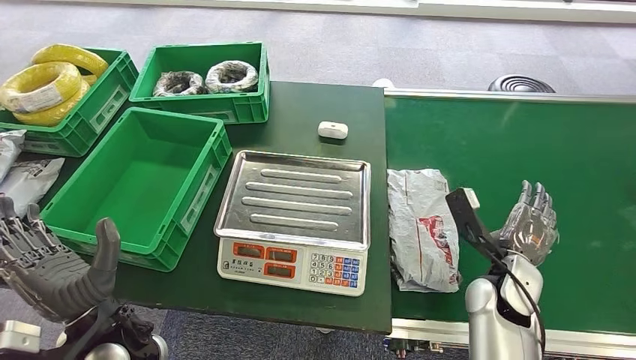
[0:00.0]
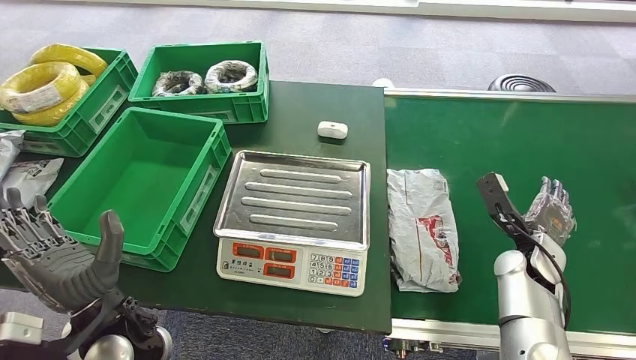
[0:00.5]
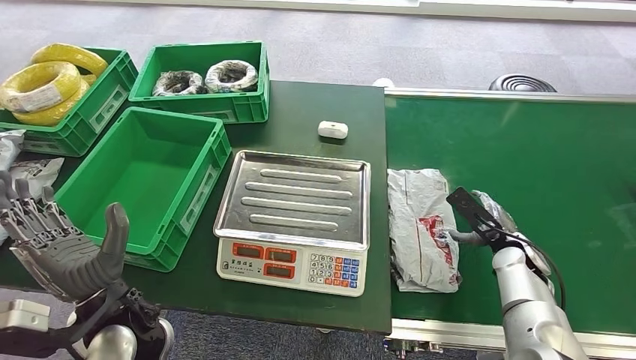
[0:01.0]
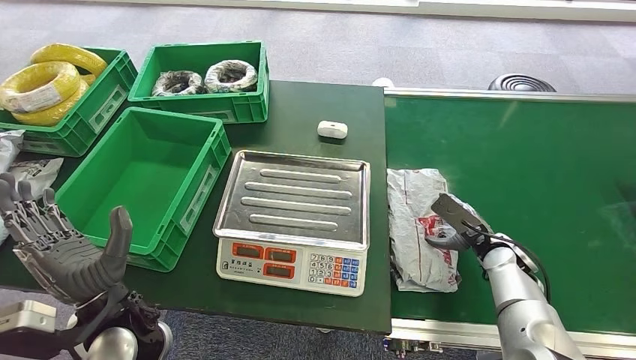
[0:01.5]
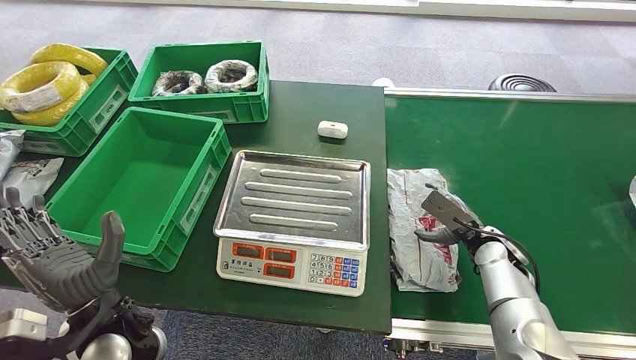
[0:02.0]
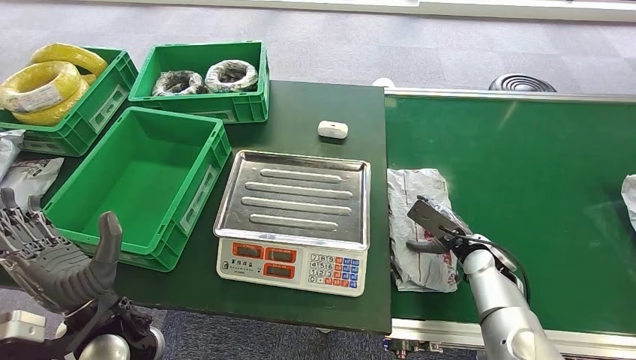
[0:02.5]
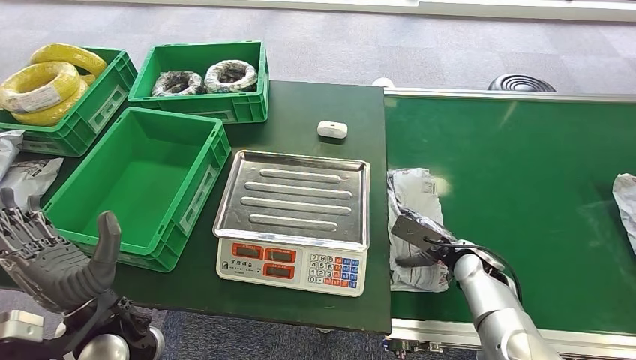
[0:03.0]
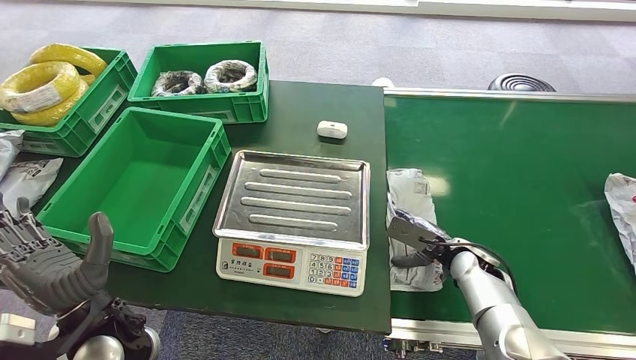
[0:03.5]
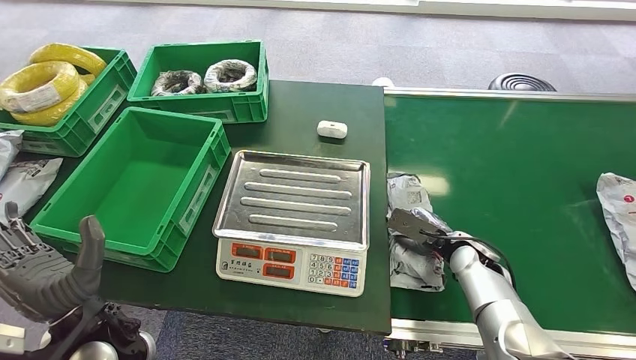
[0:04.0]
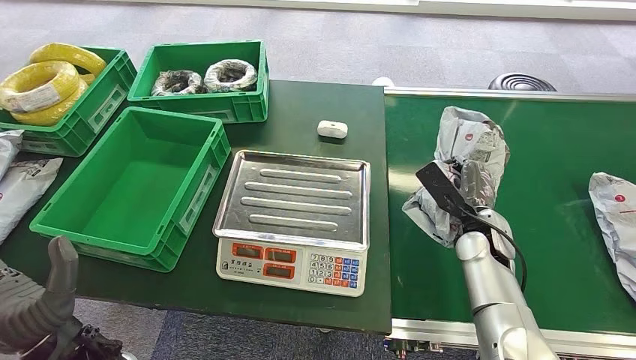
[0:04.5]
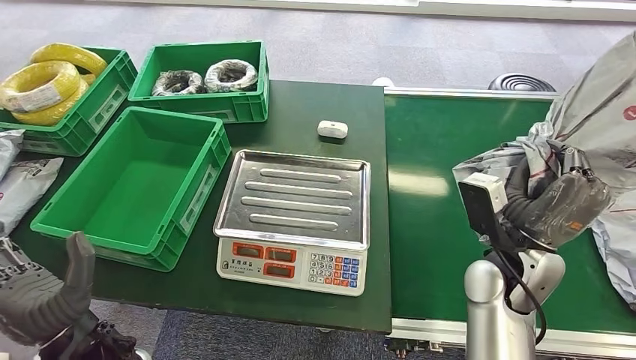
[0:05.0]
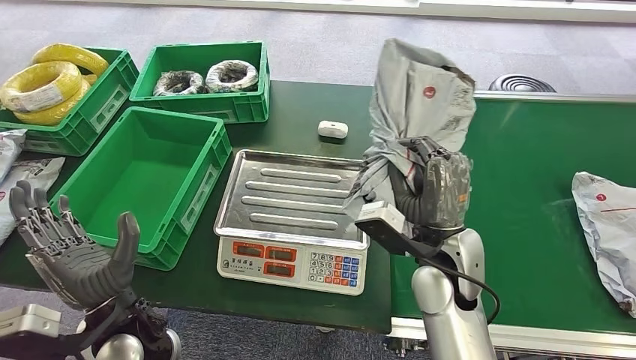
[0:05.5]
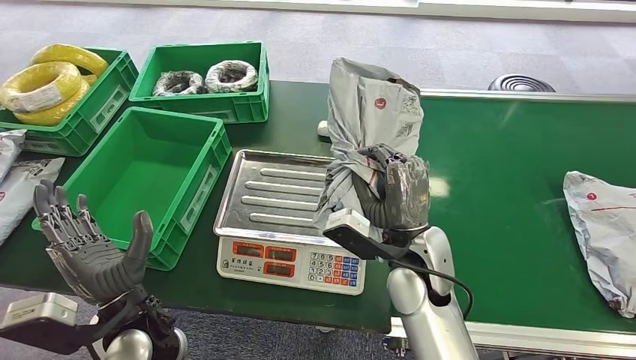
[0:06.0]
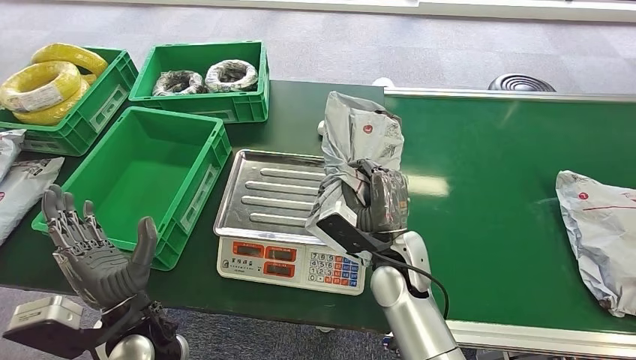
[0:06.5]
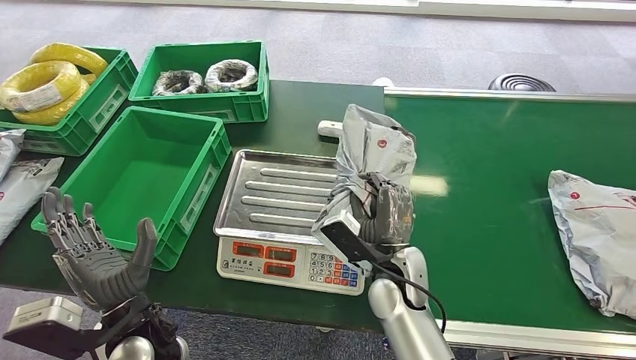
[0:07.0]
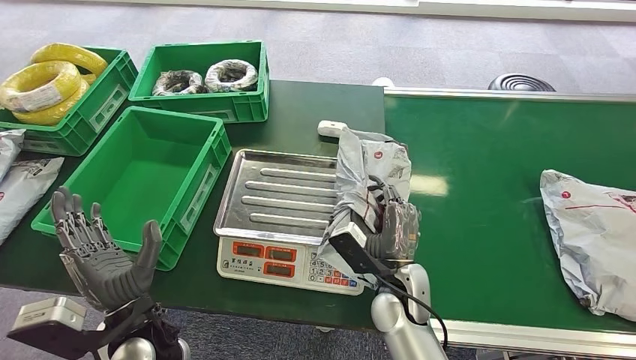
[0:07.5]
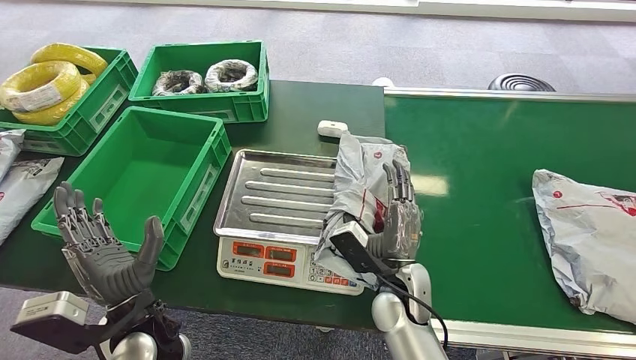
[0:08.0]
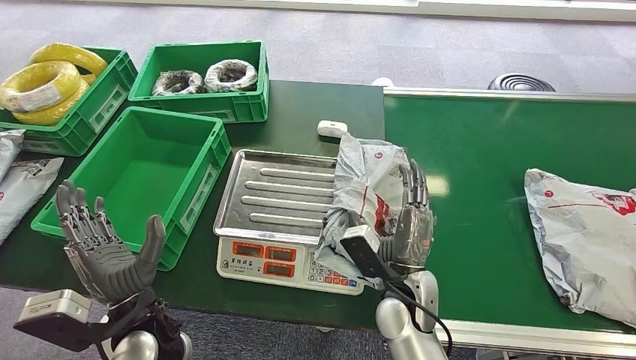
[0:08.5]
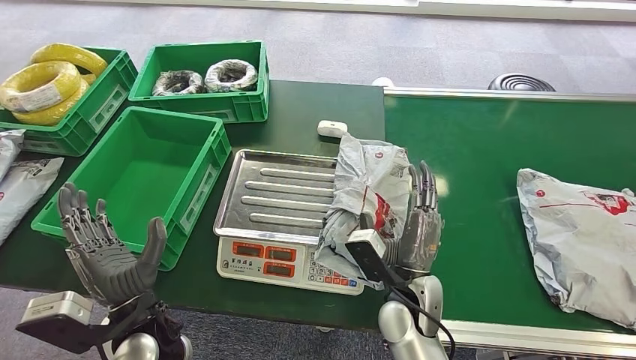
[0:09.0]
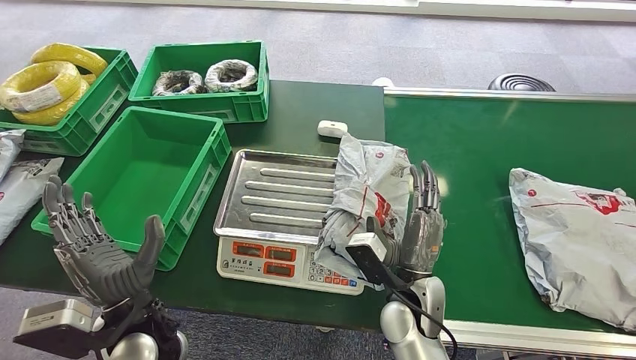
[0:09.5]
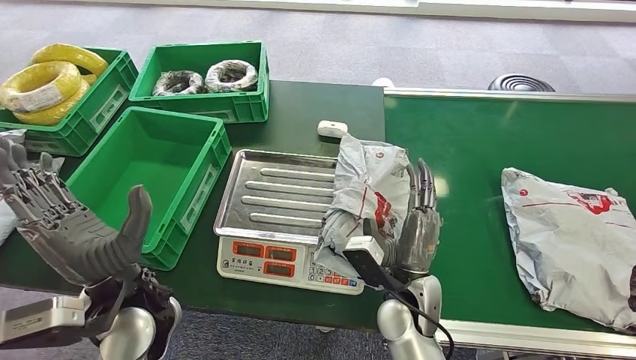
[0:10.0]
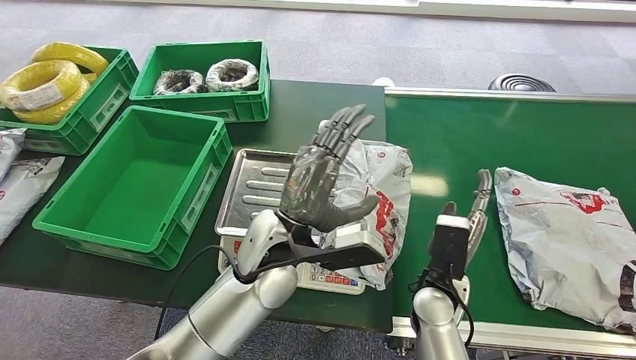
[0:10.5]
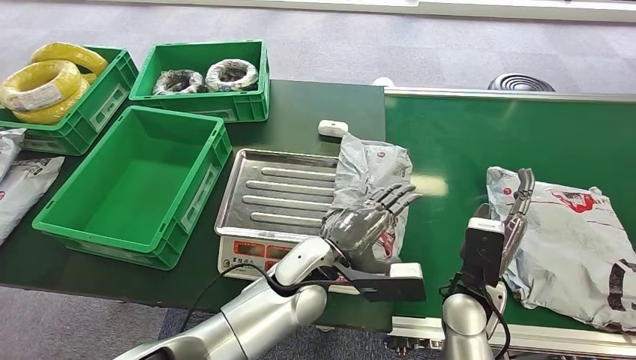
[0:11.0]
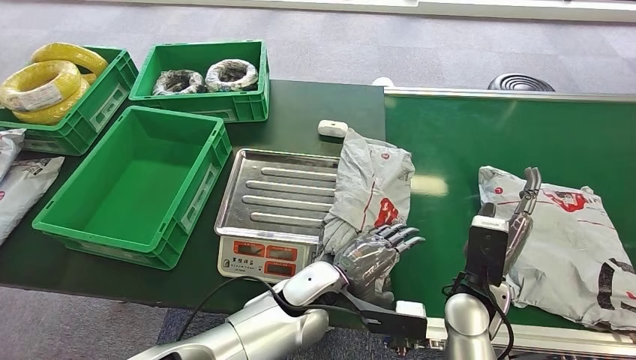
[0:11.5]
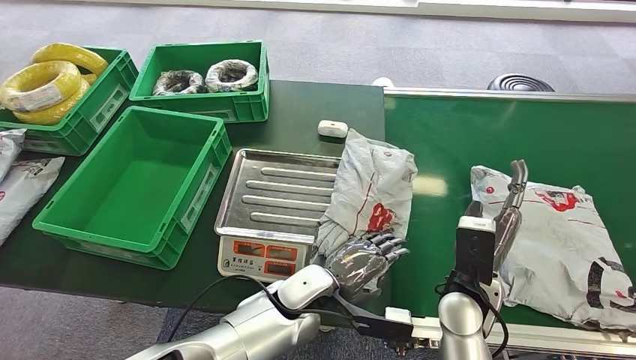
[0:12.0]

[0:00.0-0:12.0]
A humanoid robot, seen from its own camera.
Step, 0:00.0 to 0:10.5: Place the package onto the inbound machine.
0:00.0 to 0:02.0: The right hand shifts approximately 10 cm forward and to the right.
0:02.0 to 0:04.0: There are only small adjustments of the hands.
0:06.0 to 0:08.0: The right hand travels downward by some 10 cm.
0:08.0 to 0:10.0: The left hand shifts about 5 cm upward.

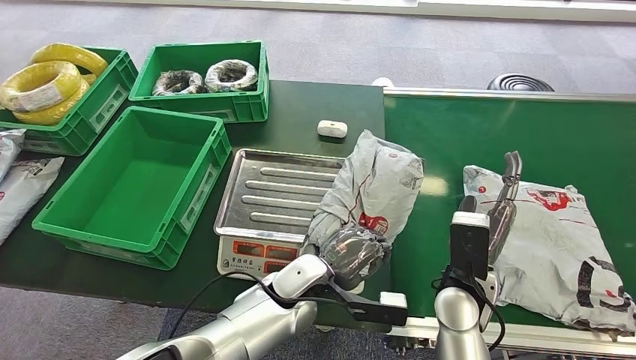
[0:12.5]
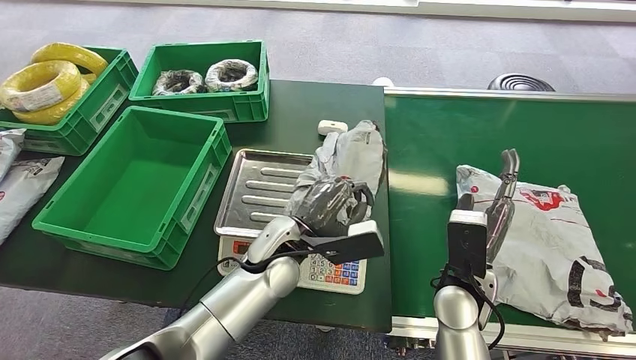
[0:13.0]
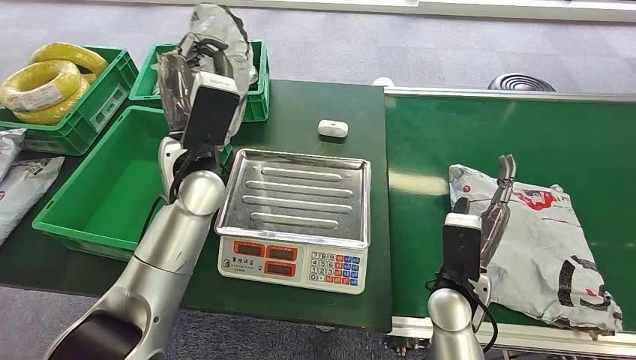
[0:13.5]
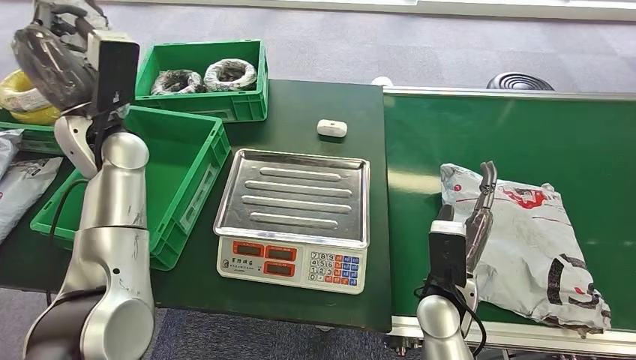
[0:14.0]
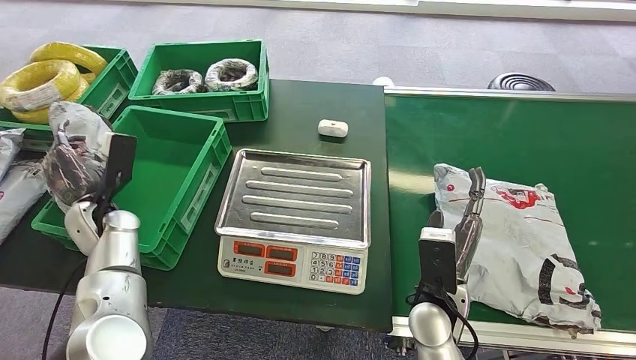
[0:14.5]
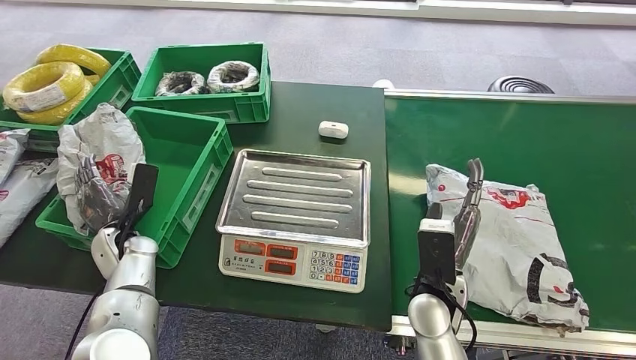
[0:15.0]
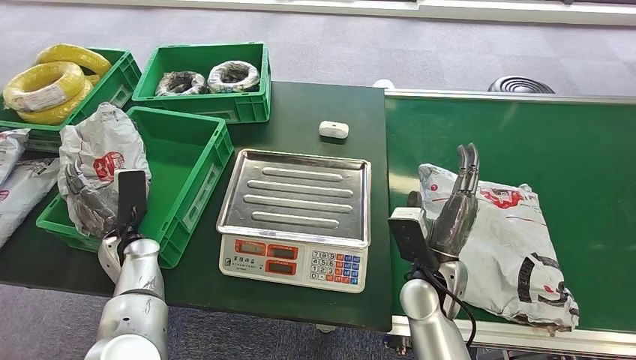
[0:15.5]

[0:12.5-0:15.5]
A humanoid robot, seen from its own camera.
Step, 0:14.0 to 0:15.5: Place the package into the parcel locker.

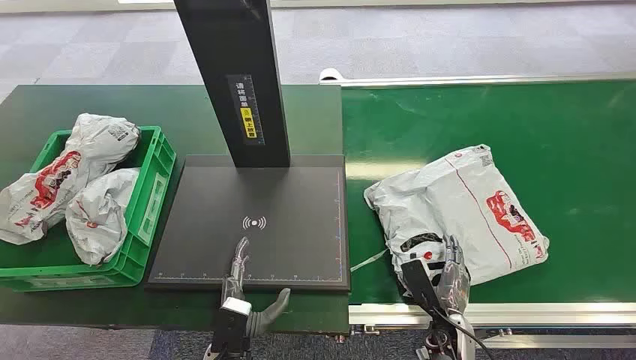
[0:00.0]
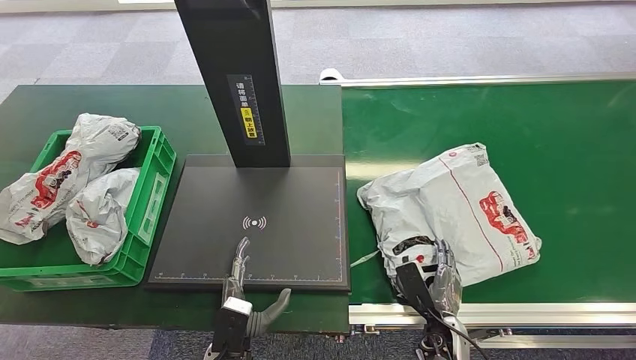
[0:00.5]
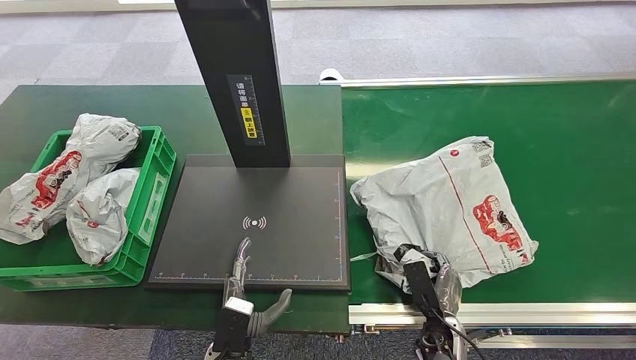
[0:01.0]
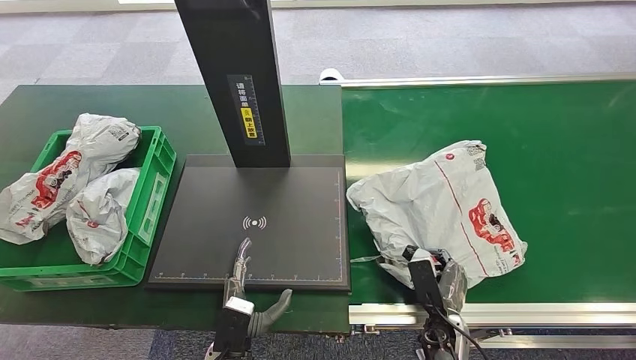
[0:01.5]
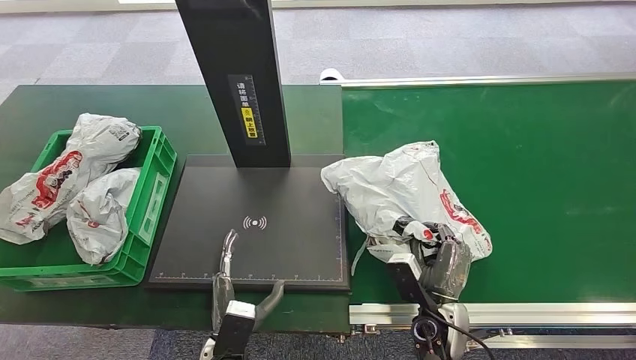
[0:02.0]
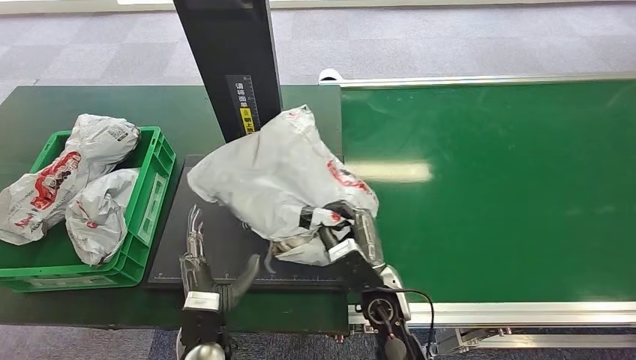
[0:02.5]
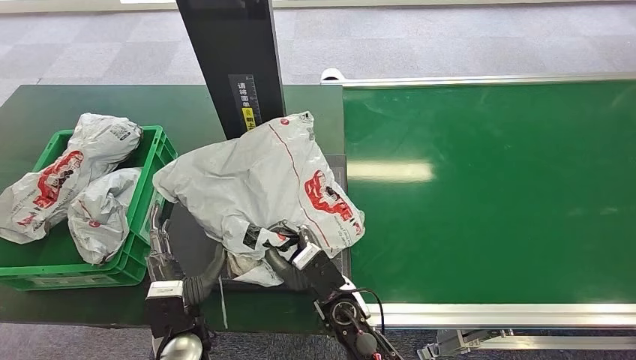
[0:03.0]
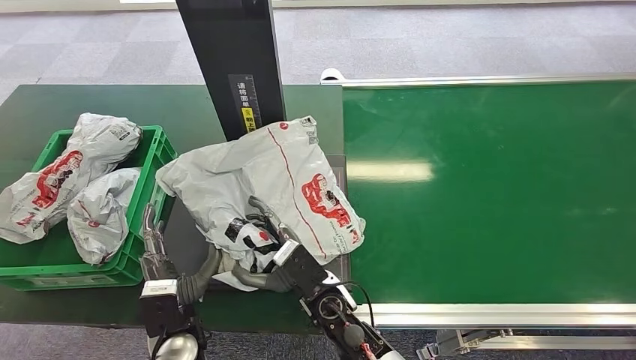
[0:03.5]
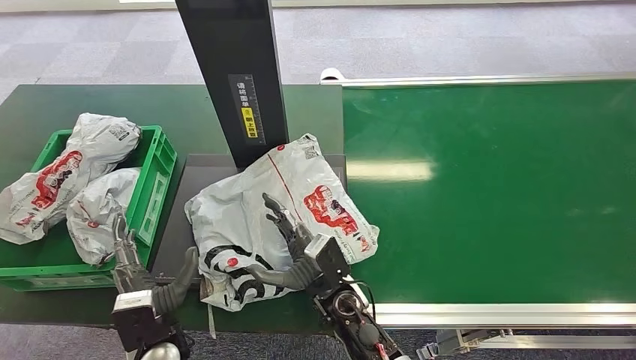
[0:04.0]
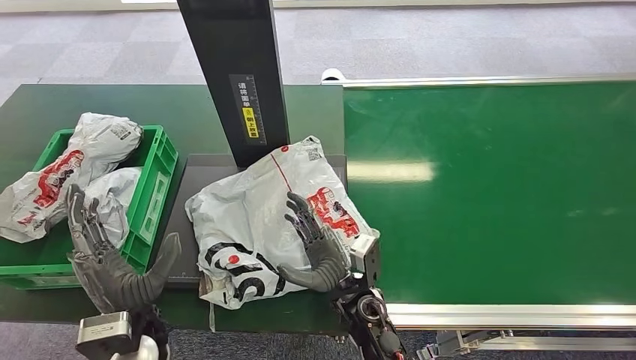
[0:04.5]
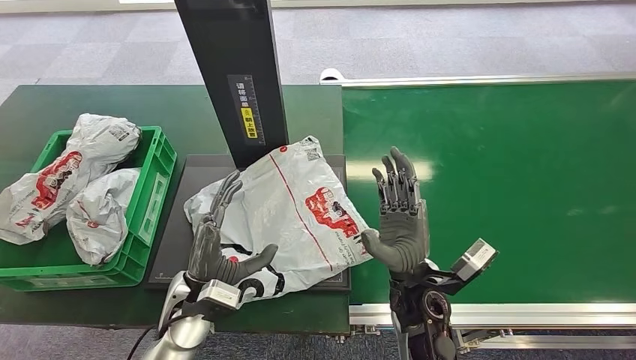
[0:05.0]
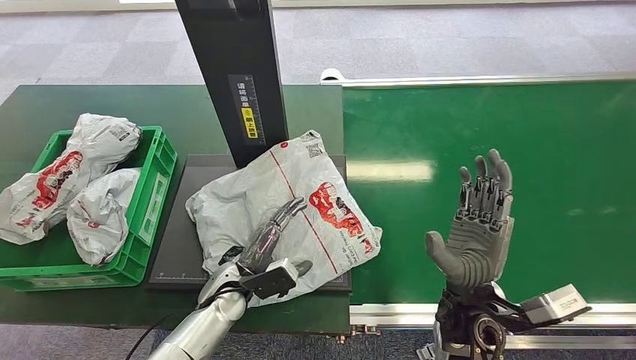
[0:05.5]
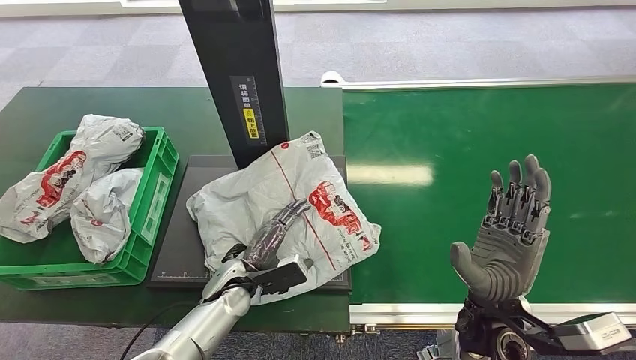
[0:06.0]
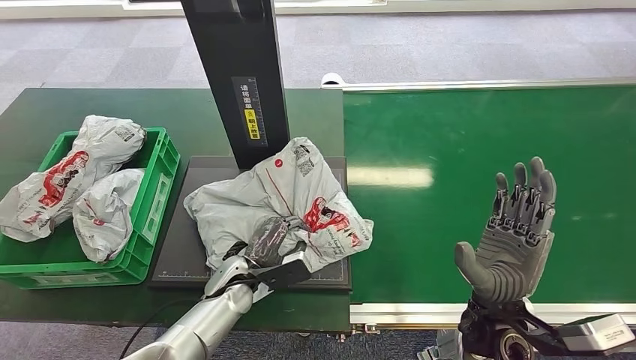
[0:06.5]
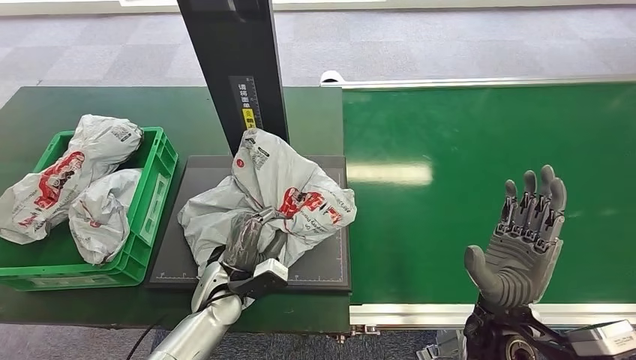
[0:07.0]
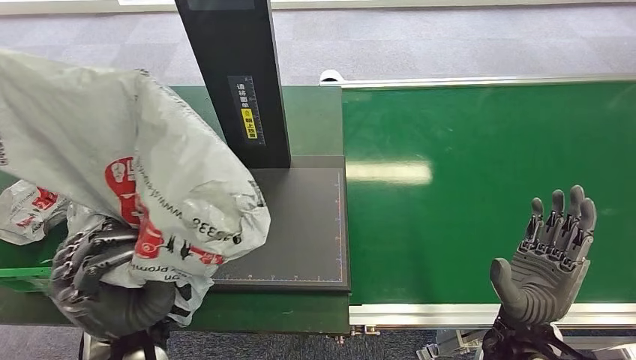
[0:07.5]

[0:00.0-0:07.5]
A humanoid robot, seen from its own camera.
Step, 0:00.0 to 0:02.0: Pick up the package from the conveyor belt.
Step, 0:02.5 to 0:05.0: Place the package onto the inbound machine.
0:04.0 to 0:05.5: The left hand moves forward and to the right, some 15 cm. The right hand goes about 20 cm to the right and upward.
